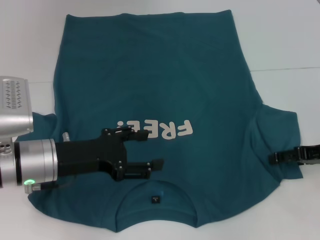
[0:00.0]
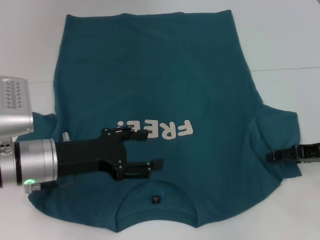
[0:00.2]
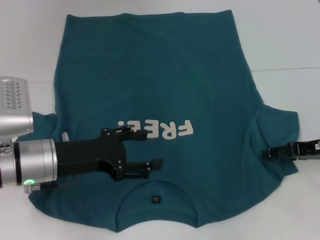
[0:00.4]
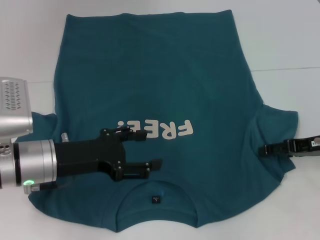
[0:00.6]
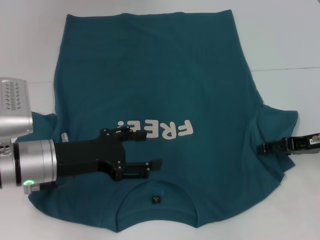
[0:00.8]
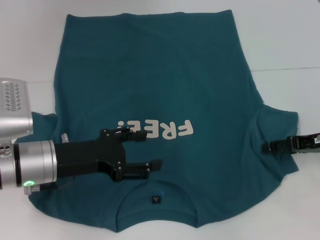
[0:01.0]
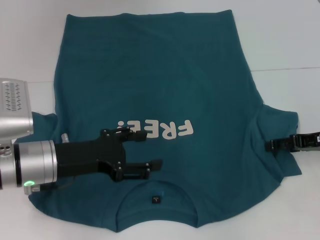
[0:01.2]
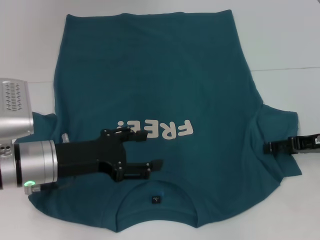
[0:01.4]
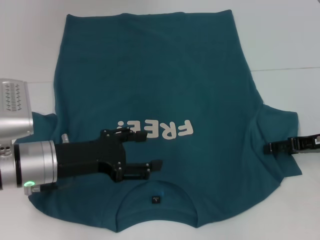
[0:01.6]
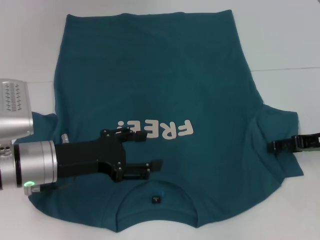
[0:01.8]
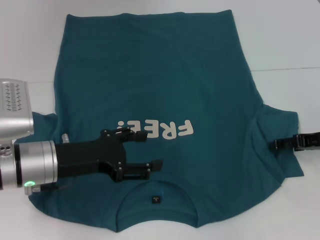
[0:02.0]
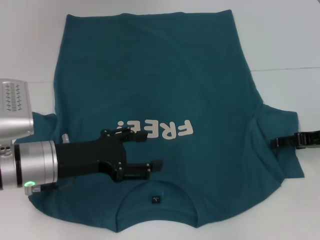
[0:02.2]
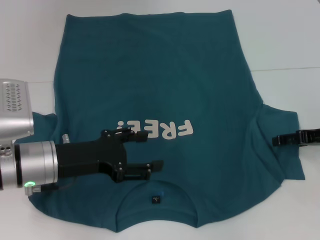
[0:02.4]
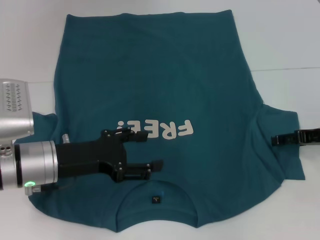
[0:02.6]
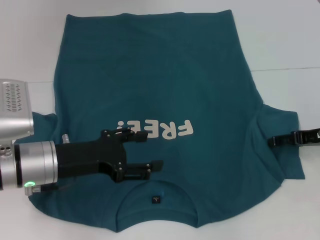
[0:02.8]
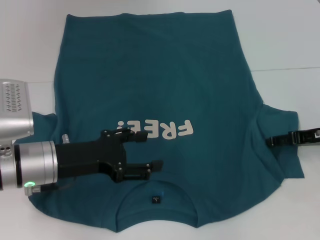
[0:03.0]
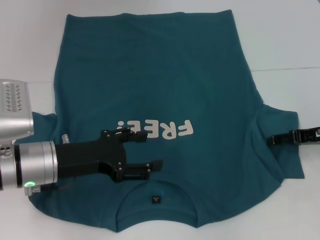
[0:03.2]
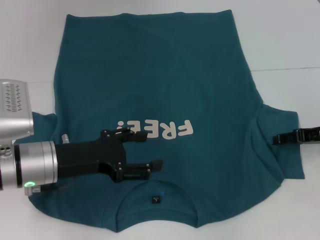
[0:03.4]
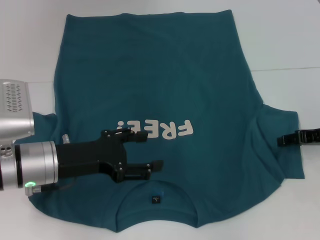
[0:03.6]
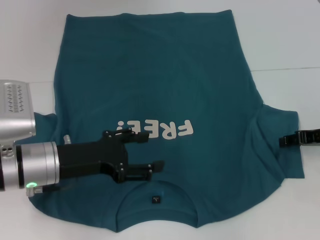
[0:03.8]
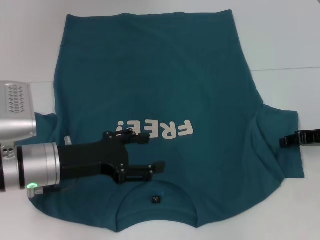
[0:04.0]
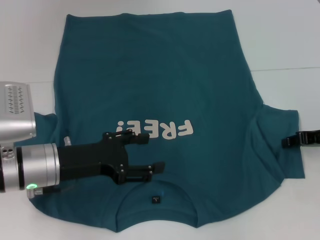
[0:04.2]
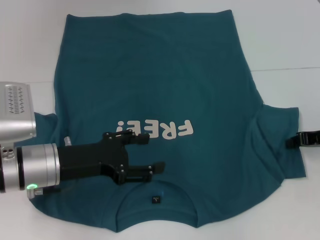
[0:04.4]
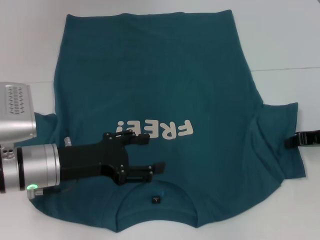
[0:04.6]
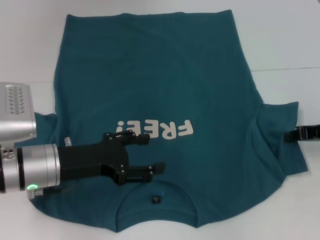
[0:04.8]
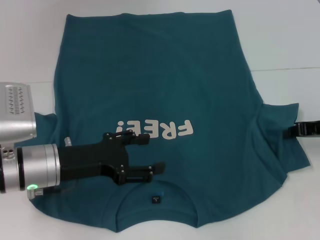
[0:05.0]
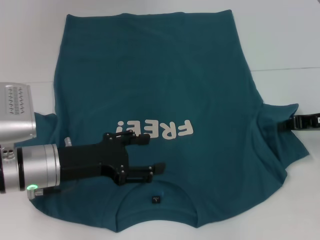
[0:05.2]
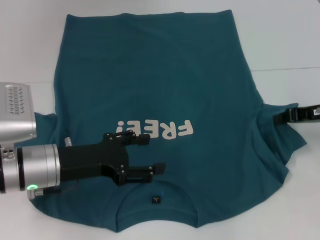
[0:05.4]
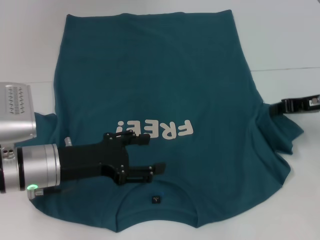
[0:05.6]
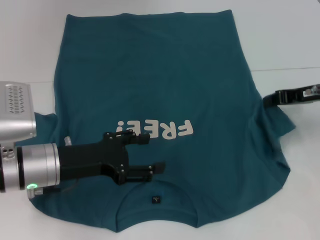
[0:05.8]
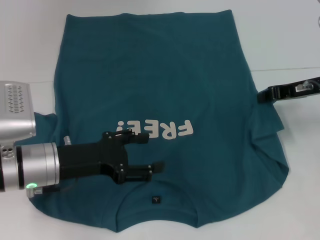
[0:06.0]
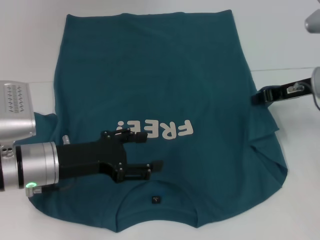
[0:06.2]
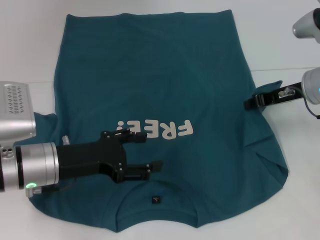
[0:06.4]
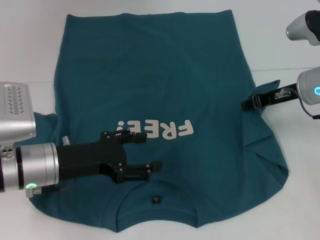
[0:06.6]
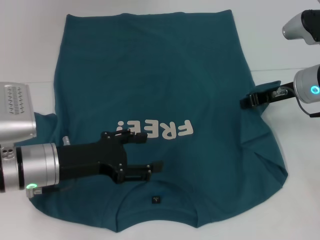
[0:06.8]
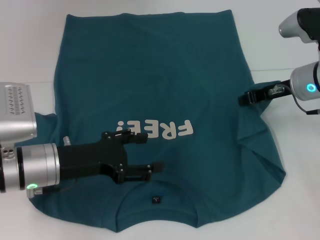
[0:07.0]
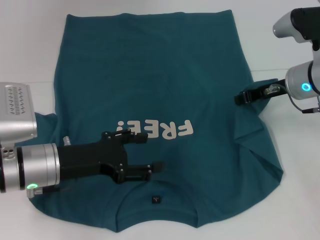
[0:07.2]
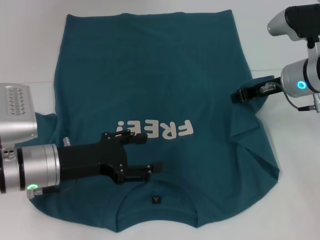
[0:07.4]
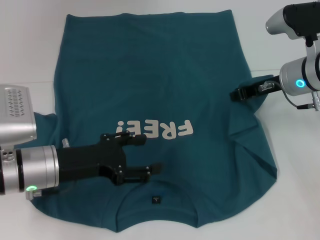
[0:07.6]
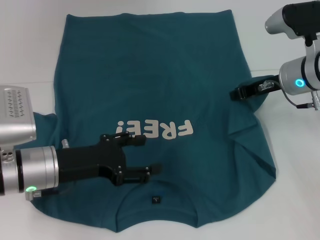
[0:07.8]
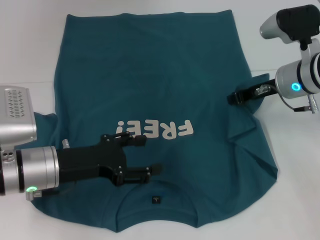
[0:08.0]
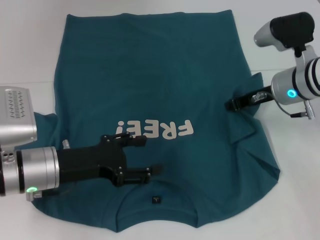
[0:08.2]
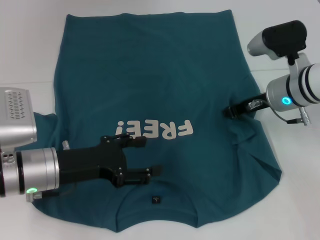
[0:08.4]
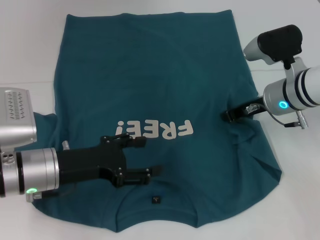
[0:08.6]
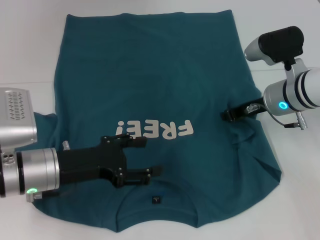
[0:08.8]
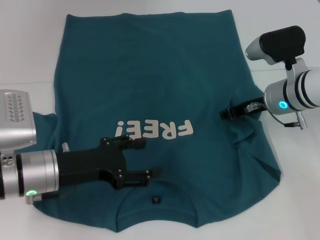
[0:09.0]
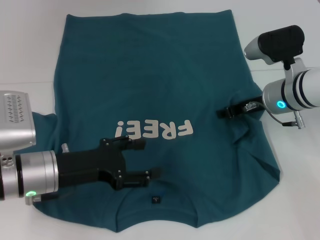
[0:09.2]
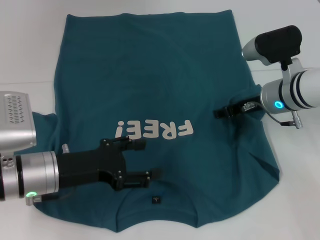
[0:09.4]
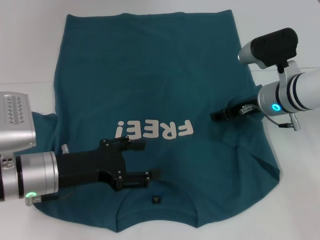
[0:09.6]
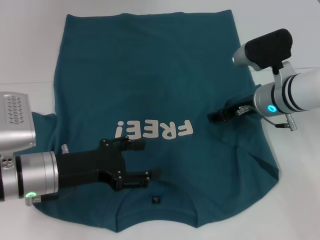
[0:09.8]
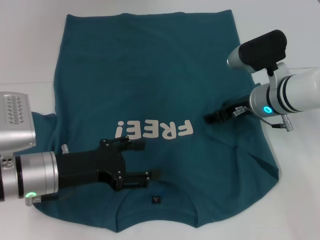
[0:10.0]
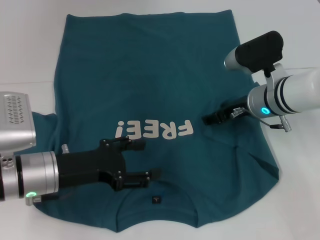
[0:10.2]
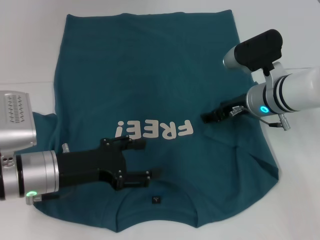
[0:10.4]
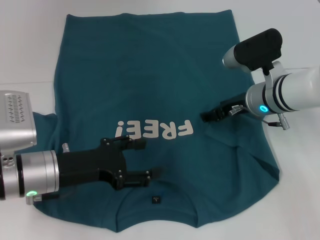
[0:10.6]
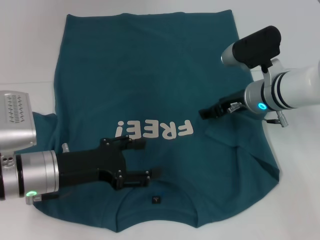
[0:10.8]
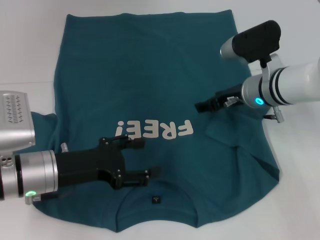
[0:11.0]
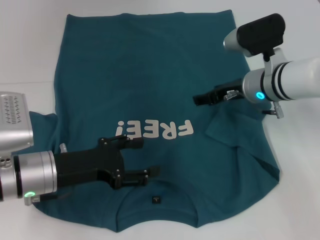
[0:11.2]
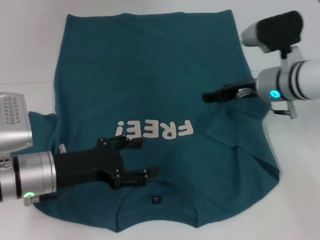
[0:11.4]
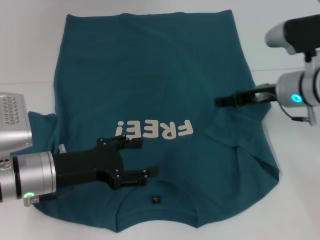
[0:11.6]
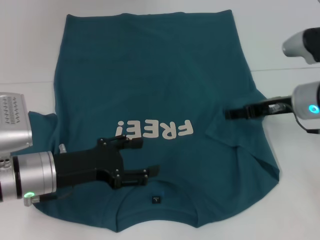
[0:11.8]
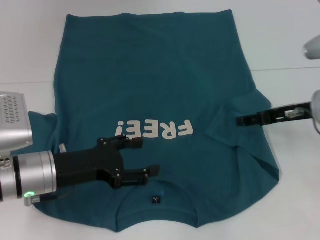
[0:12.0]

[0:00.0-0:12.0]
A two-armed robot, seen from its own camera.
Step, 0:00.0 to 0:10.6: Fold the bottom right sleeve to the right.
0:00.0 to 0:01.6: The grippers stay close to where they were, moving slightly.
0:01.6 to 0:03.0: Neither gripper changes place.
0:03.0 to 0:04.4: The right gripper closes its fingers.
0:04.4 to 0:06.0: The right gripper heads upward, covering some 5 cm.
0:06.0 to 0:07.6: The right gripper travels to the left by about 5 cm.
0:07.6 to 0:09.0: The grippers stay close to where they were, moving slightly.
0:09.0 to 0:10.4: The right gripper opens.
0:10.4 to 0:12.0: The right gripper travels to the right and backward by approximately 10 cm.

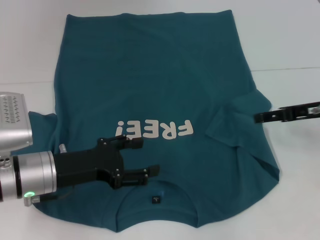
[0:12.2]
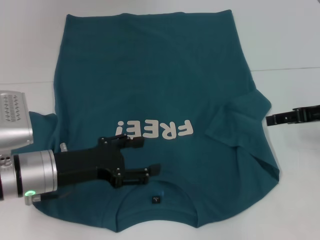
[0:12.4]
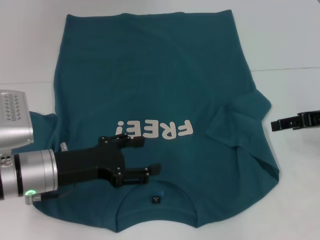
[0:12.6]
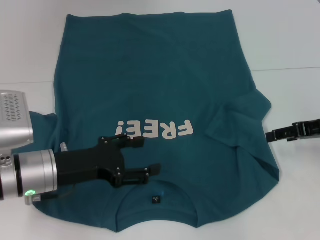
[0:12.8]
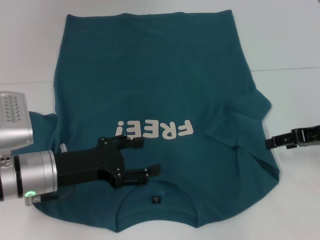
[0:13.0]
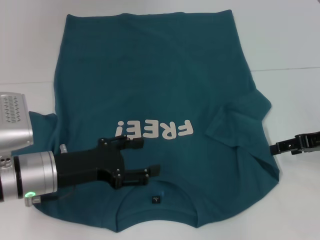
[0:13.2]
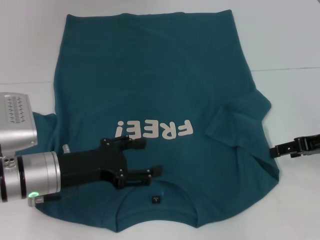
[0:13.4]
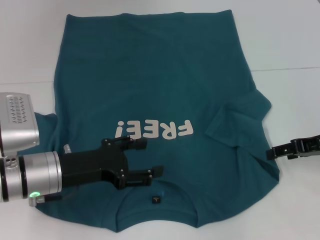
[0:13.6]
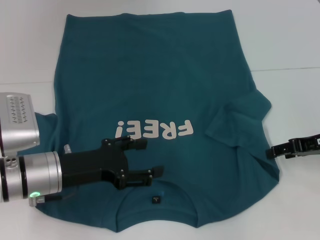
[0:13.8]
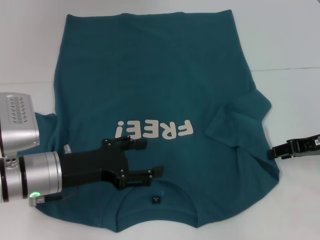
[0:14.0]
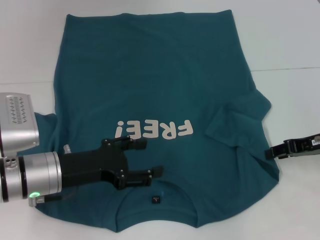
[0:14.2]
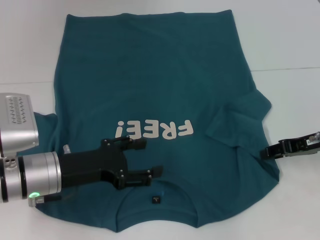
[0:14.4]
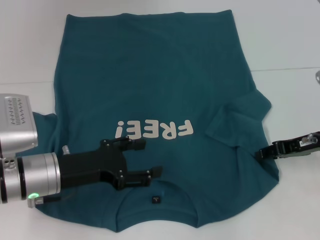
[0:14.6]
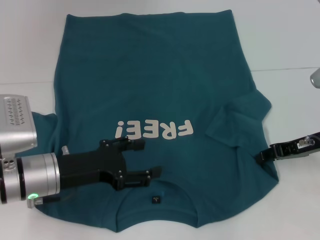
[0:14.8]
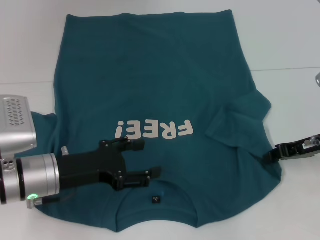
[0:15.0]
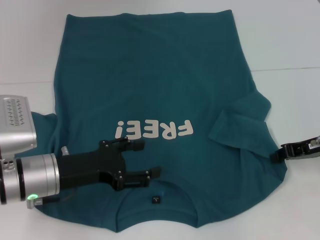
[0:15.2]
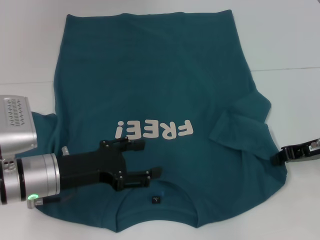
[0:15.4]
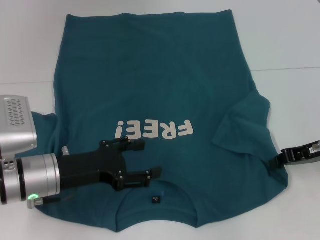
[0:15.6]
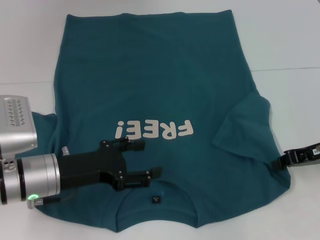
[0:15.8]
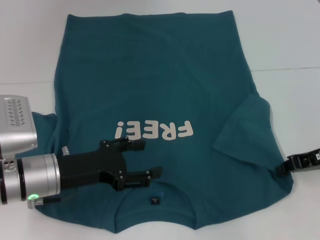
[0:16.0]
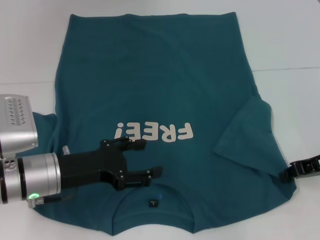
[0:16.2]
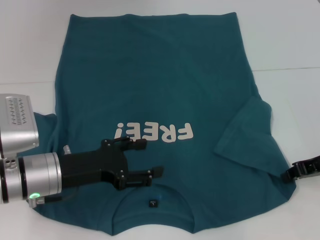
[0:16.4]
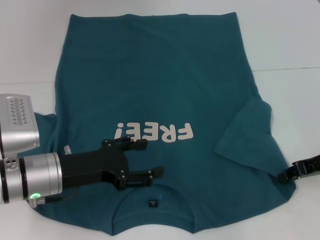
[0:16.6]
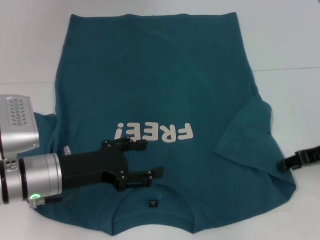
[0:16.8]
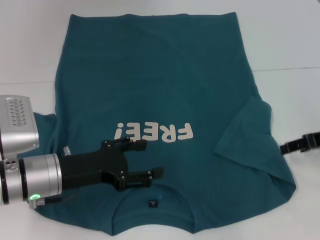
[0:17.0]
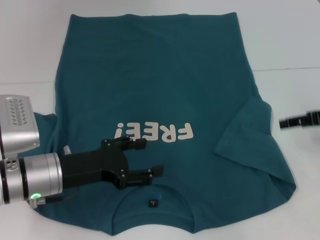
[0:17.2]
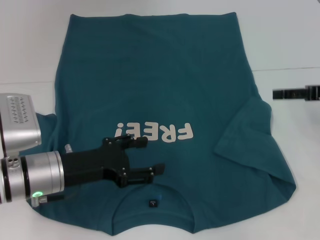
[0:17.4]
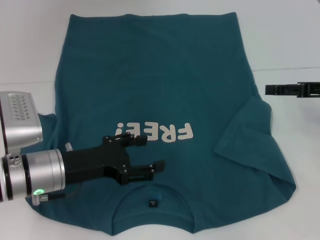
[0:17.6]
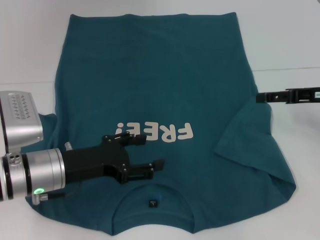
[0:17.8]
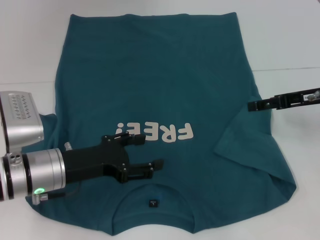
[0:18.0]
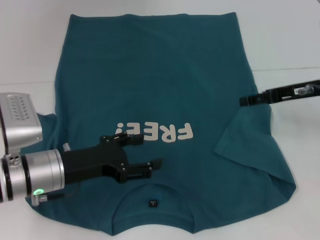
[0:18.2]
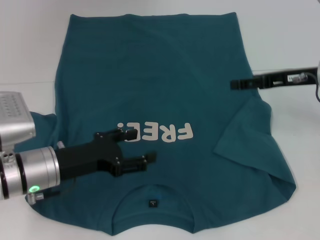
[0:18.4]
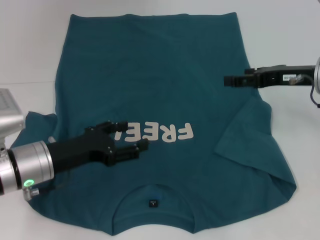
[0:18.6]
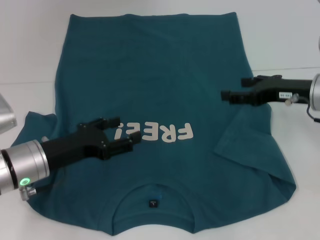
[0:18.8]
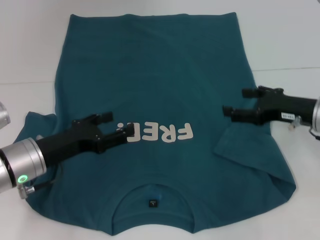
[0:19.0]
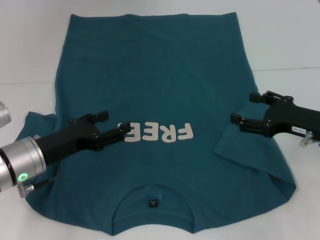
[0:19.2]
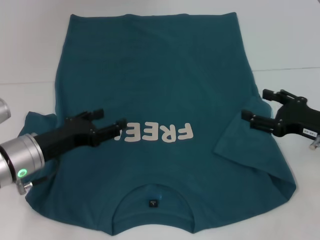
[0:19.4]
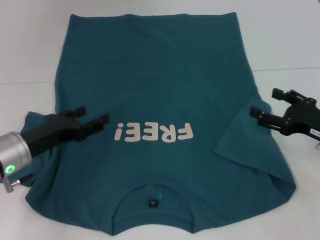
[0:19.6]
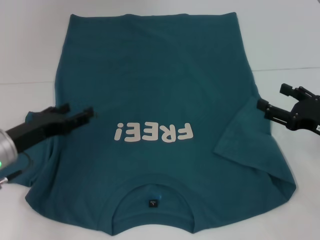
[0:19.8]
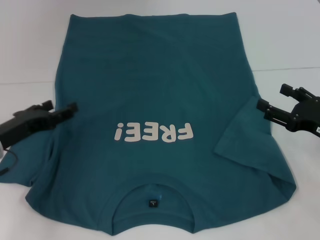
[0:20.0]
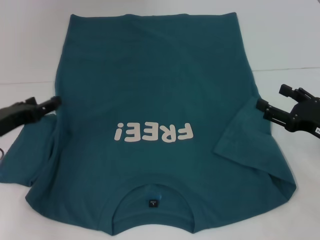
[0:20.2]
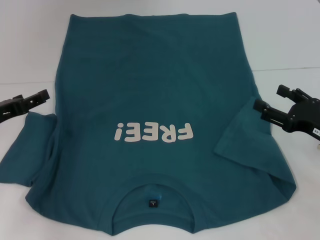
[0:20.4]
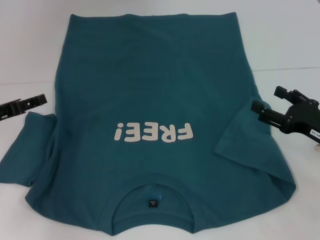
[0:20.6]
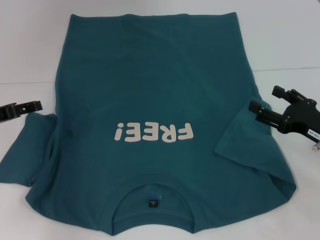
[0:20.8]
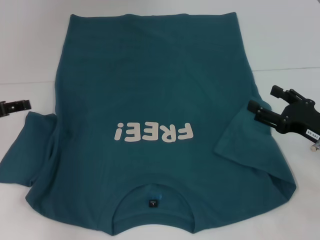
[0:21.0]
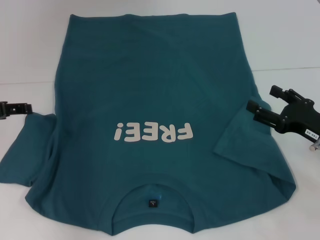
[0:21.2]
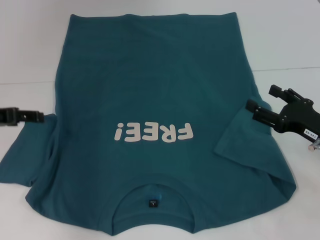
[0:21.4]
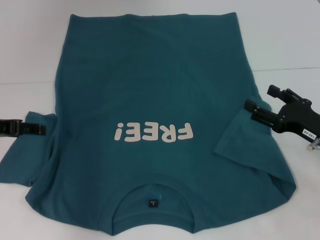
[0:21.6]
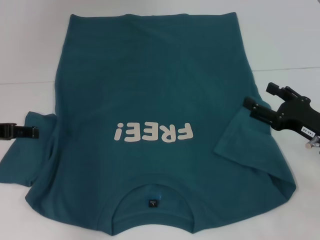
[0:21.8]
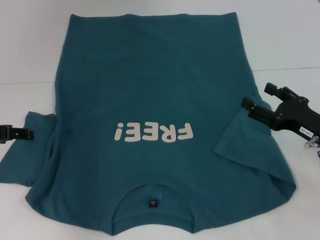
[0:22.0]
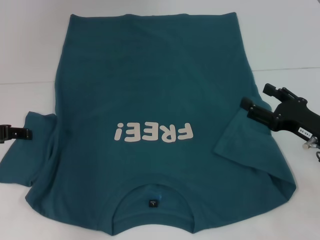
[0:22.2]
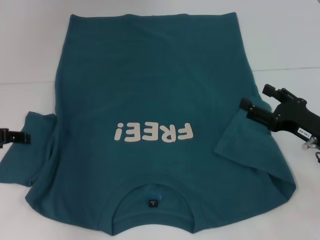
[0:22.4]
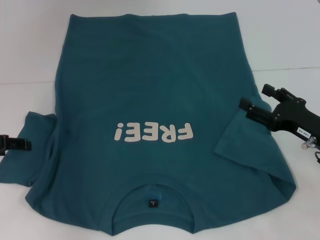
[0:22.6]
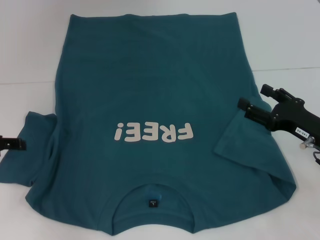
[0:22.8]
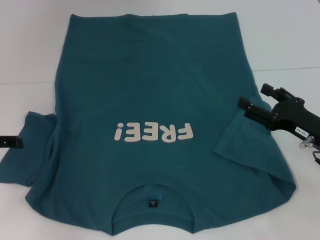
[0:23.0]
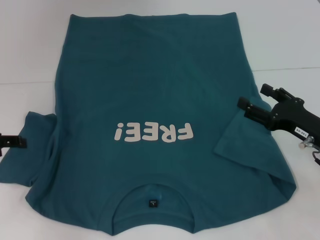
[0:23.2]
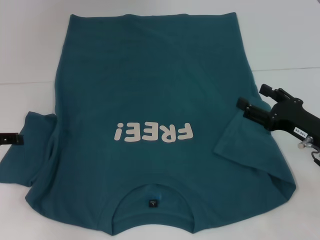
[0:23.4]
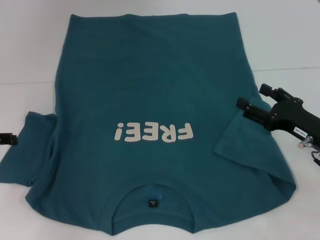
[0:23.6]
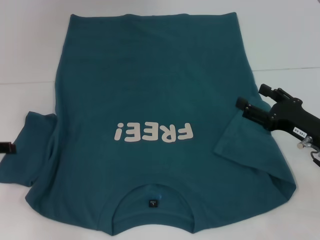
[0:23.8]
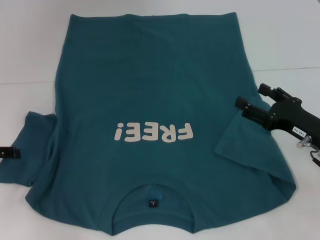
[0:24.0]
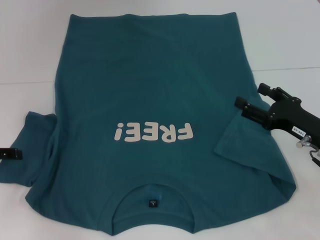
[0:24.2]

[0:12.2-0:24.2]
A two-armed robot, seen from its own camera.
0:12.2 to 0:13.8: There are only small adjustments of the grippers.
0:13.8 to 0:15.2: The right gripper closes up.
0:15.2 to 0:16.6: The grippers move only a little.
0:16.6 to 0:18.2: The right gripper goes about 10 cm forward and upward, and opens up.
0:18.2 to 0:19.8: The right gripper heads backward and downward, covering some 10 cm, while the left gripper goes approximately 5 cm to the left.
0:19.8 to 0:21.2: The left gripper goes roughly 10 cm upward and to the left.
0:21.2 to 0:24.2: The grippers move only a little.
